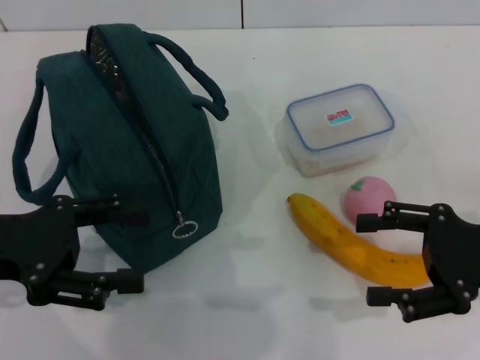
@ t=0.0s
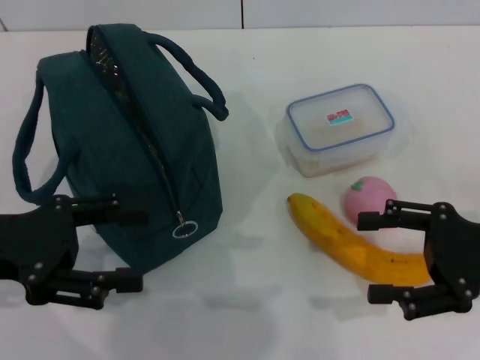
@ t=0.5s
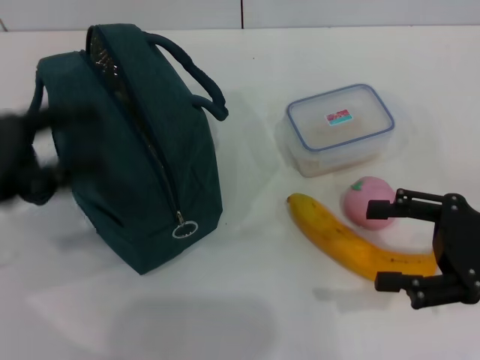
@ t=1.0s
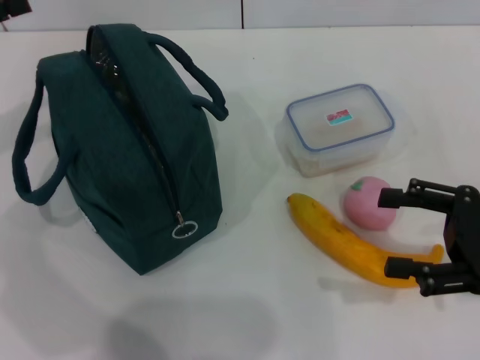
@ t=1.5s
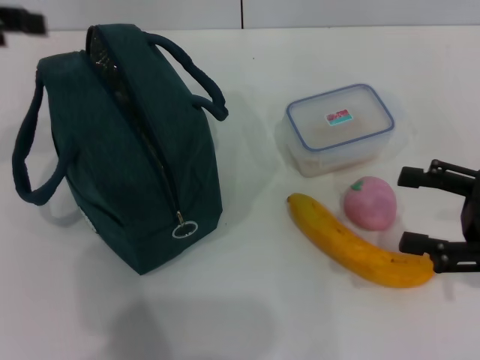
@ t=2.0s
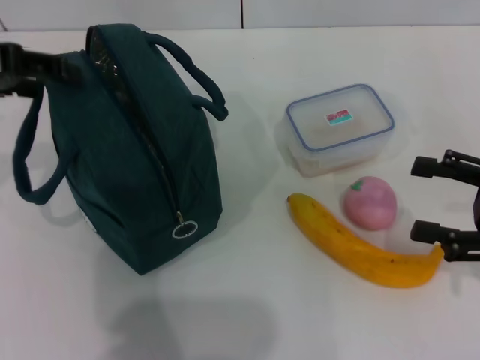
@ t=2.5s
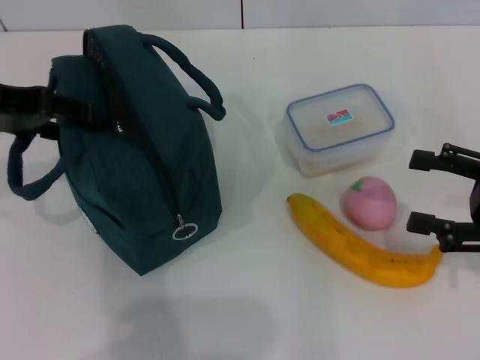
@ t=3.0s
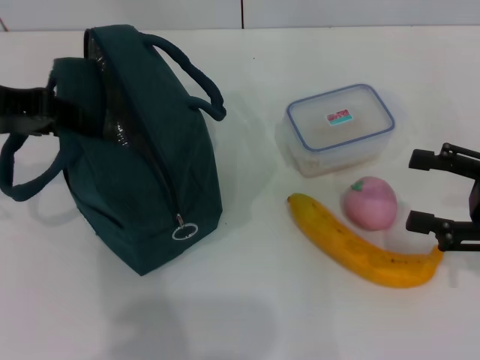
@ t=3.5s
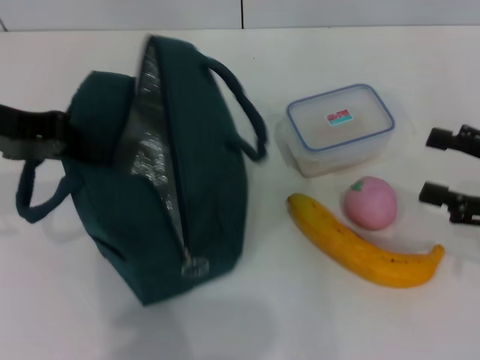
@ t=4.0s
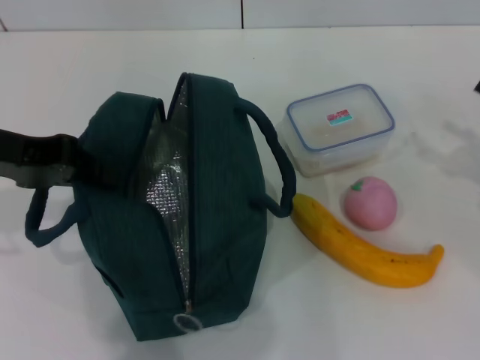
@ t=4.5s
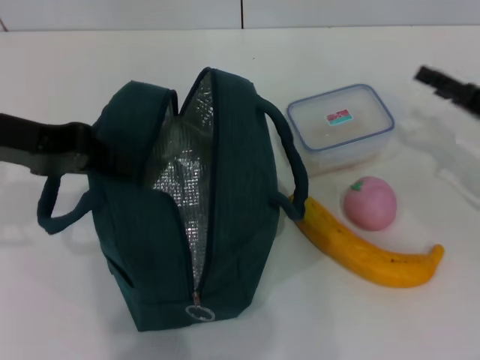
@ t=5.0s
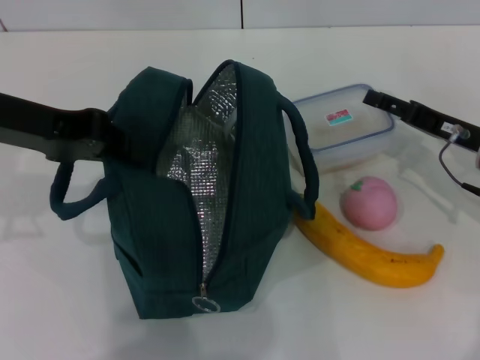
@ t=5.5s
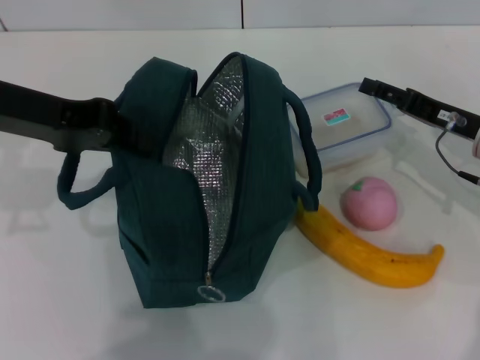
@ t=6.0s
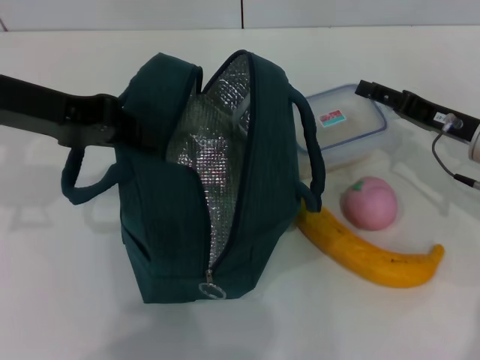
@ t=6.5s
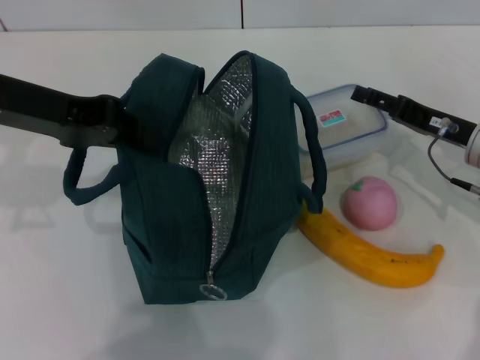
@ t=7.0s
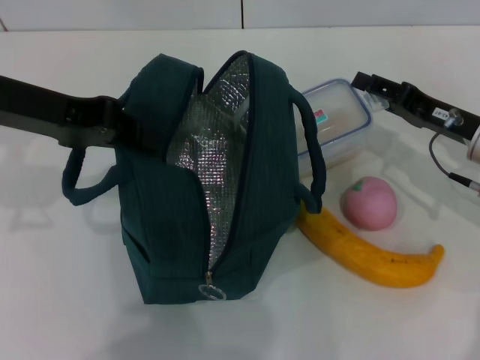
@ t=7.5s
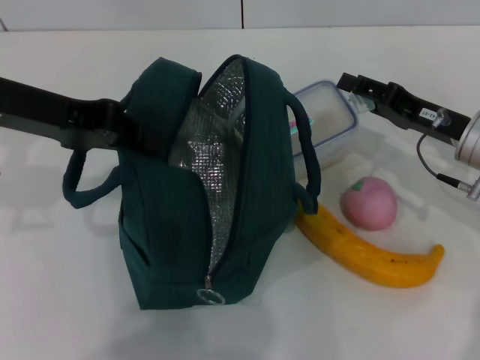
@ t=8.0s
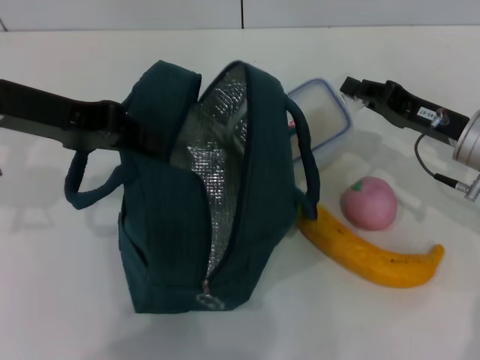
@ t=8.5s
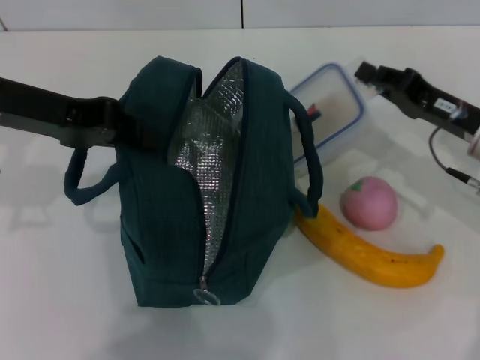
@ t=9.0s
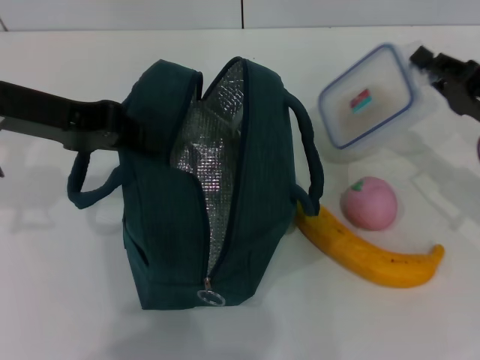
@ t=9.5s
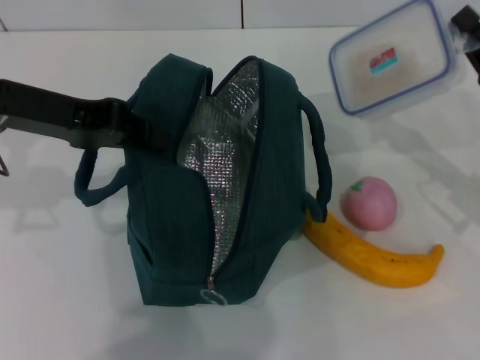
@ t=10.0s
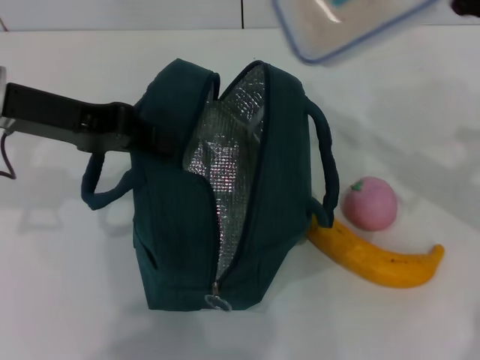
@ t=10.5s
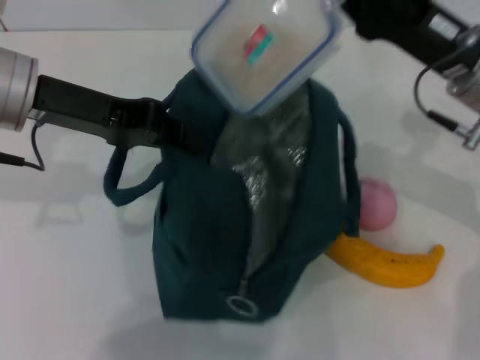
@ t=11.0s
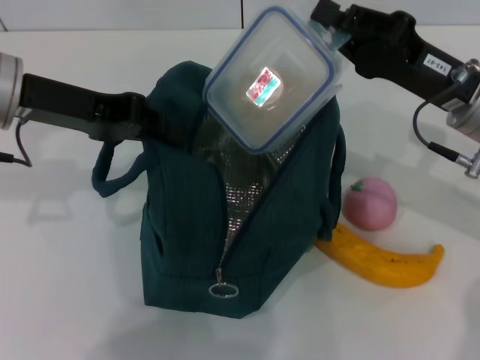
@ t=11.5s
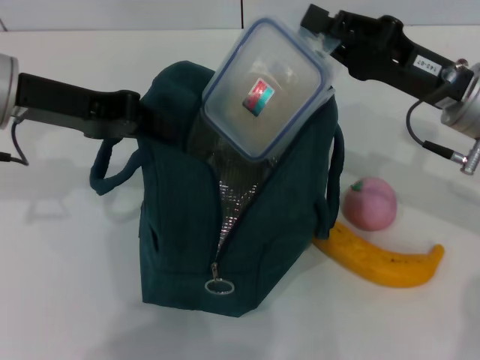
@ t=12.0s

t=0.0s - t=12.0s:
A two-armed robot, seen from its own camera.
Step, t=0.0s - t=3.5s: Hold the lunch bag with your left hand.
Step, t=4.0s - t=8.5s: Pick up the lunch box with your right hand.
t=0.0s - t=2.0s: The left gripper shifts roughly 15 cm upward and forward.
t=2.0s - t=4.0s: The left gripper shifts about 5 cm downward, and closes up.
t=4.0s - t=6.0s: The right gripper shifts roughly 15 cm forward and to the left.
t=6.0s - t=8.0s: The grippers make only small movements.
t=8.0s - t=10.0s: The right gripper shifts about 5 cm to the right, and closes up.
t=10.0s - t=12.0s: The right gripper travels to the left by about 10 cm.

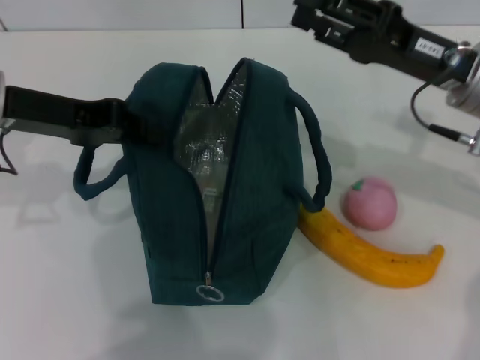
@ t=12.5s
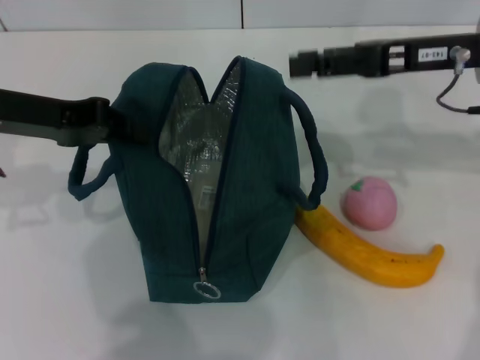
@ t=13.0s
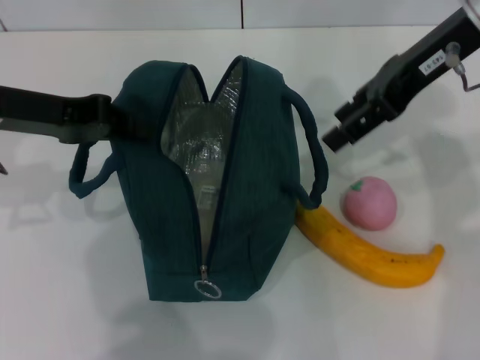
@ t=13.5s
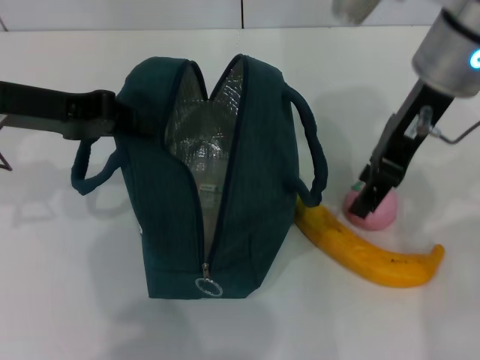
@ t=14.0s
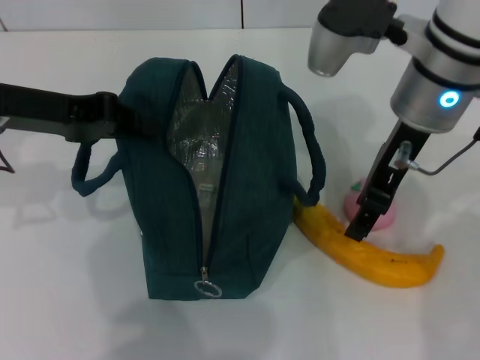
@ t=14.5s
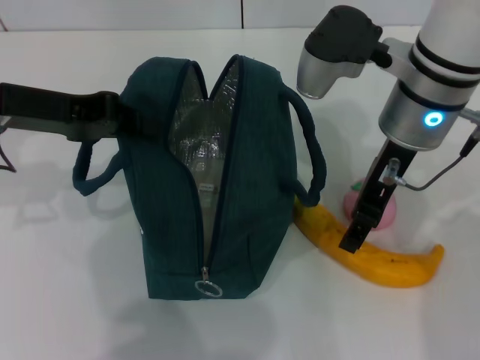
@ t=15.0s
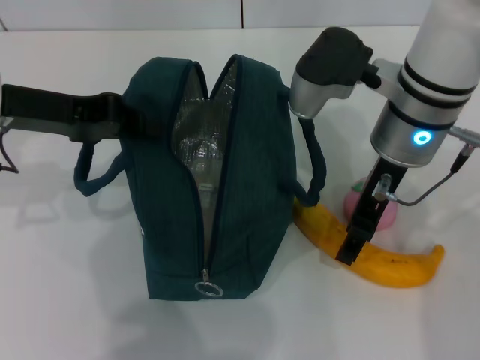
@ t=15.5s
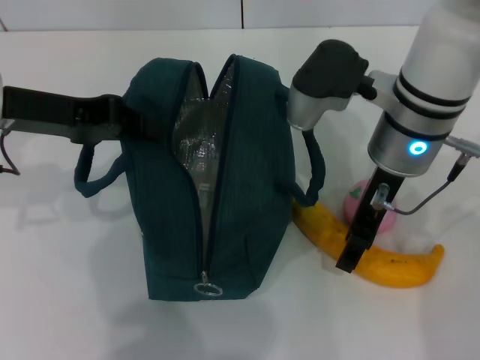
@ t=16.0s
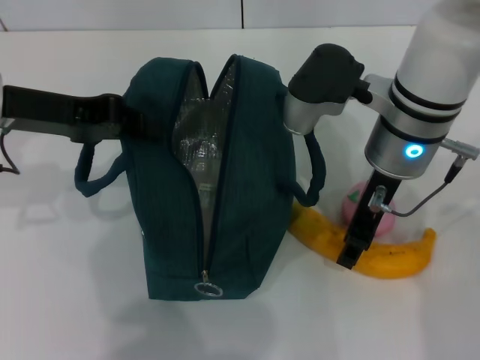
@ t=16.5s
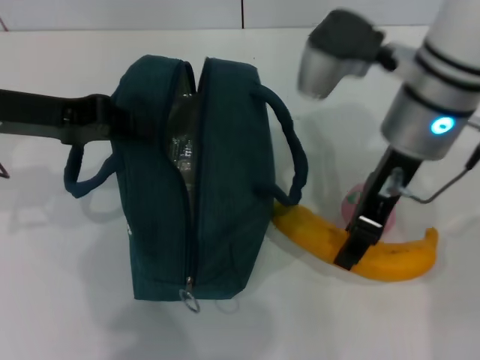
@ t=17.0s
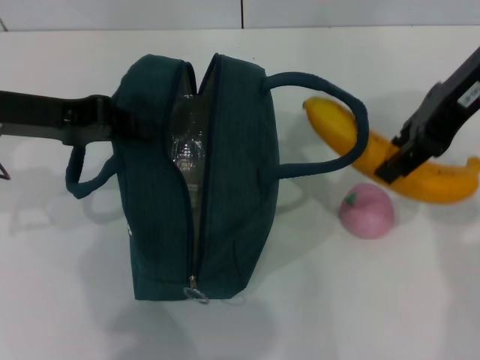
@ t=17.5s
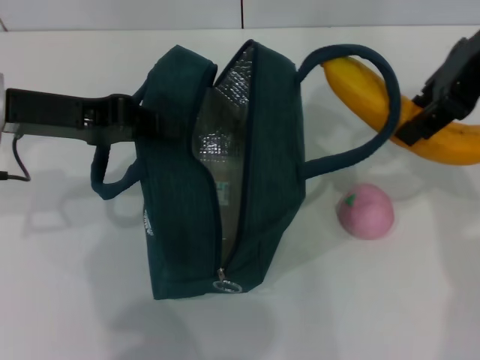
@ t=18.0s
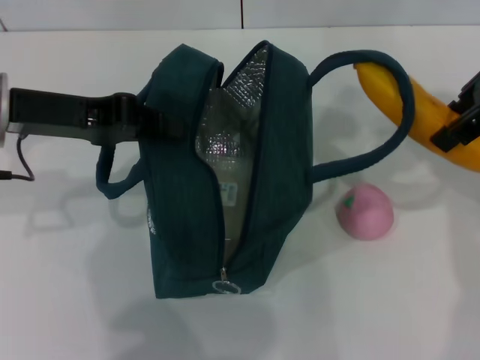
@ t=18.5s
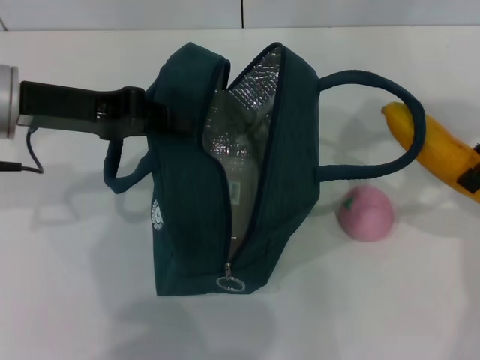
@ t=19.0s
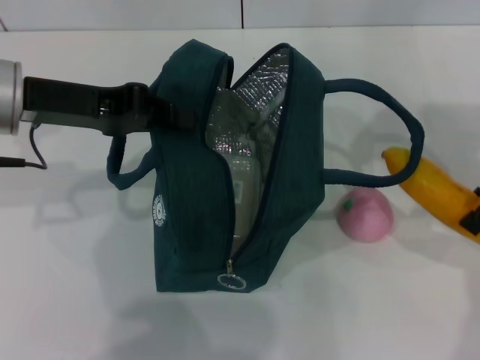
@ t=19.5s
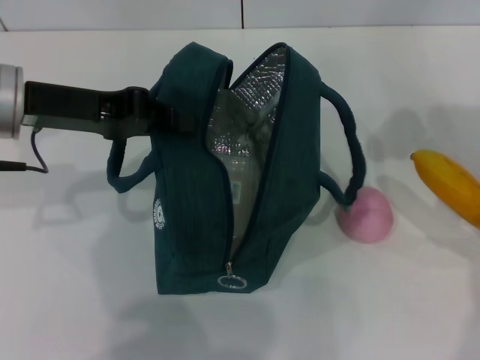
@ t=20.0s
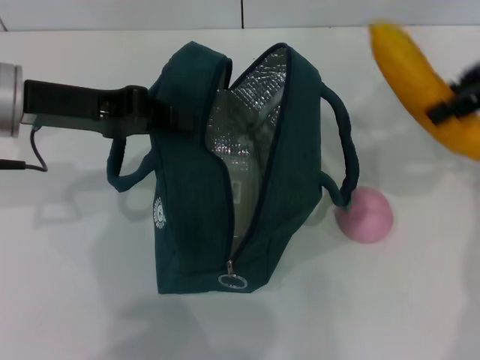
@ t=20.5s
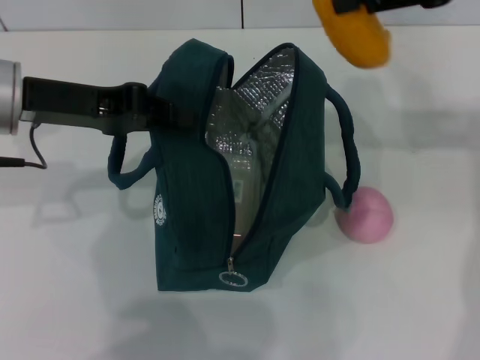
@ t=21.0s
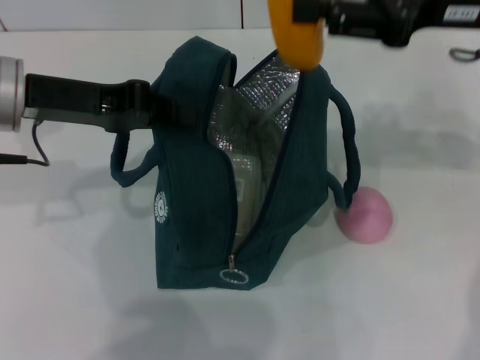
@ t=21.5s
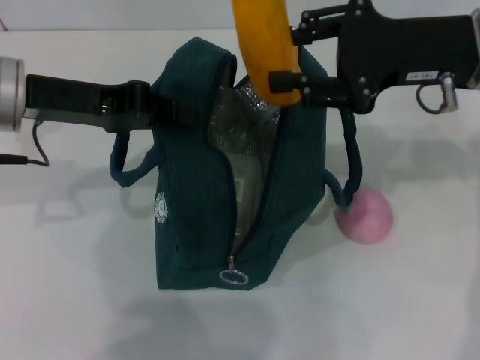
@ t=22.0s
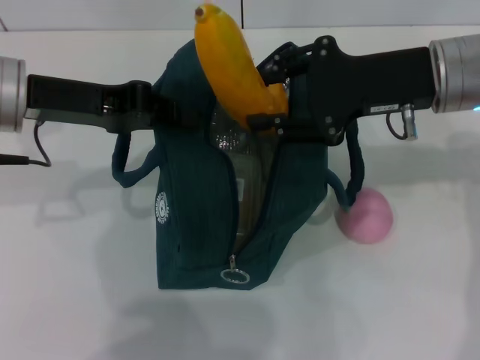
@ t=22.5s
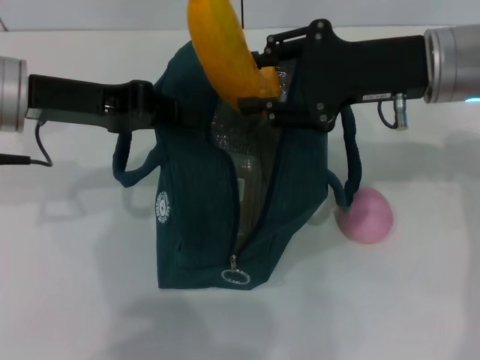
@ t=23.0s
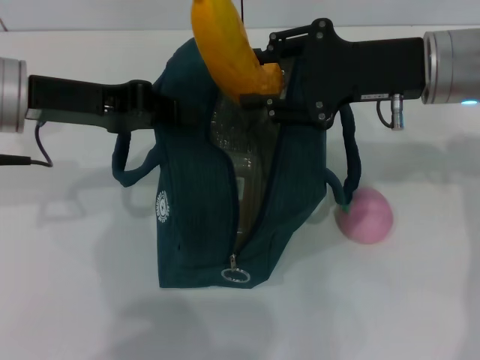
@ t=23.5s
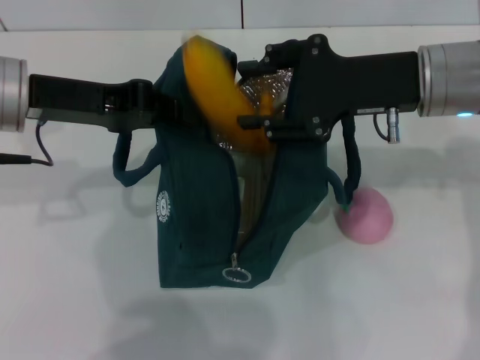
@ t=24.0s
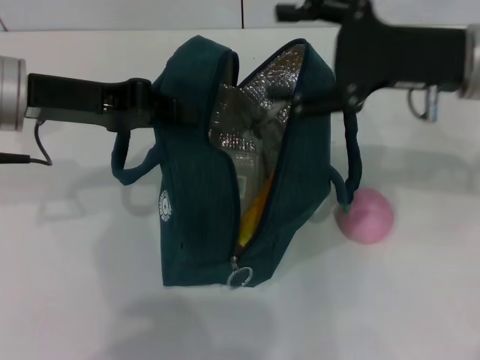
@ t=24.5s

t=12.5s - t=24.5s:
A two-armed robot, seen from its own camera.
Step, t=12.5s - t=16.5s: Take the banana with your right hand.
Step, t=17.0s - t=24.0s: Put the banana into the lunch bag with your right hand.
t=12.5s - t=14.5s: The right gripper is displaced to the left and upward by about 10 cm.
t=14.5s - t=16.5s: The right gripper ends up some 5 cm from where it was.
t=16.5s - t=18.5s: The right gripper moves upward and to the right, roughly 20 cm.
t=18.5s - t=20.5s: The right gripper moves roughly 10 cm downward and comes back.
t=20.5s - t=22.5s: The right gripper travels downward and to the left by about 15 cm.
t=22.5s - t=24.5s: The right gripper opens.

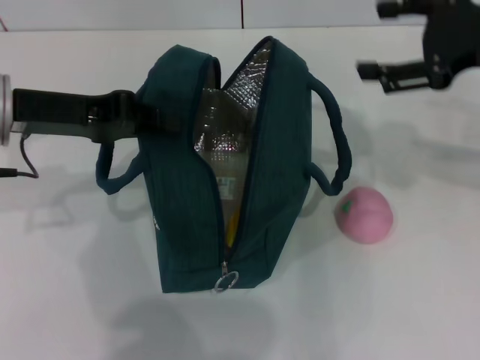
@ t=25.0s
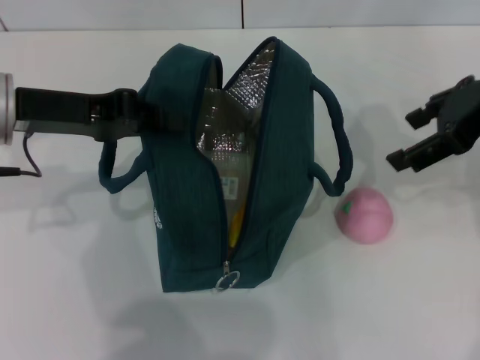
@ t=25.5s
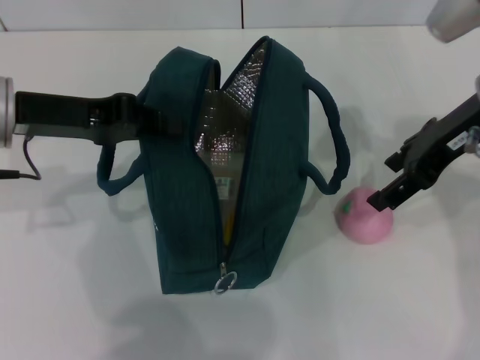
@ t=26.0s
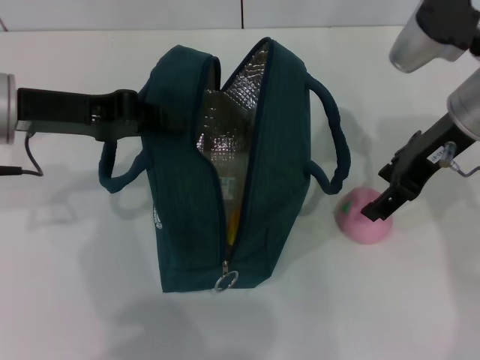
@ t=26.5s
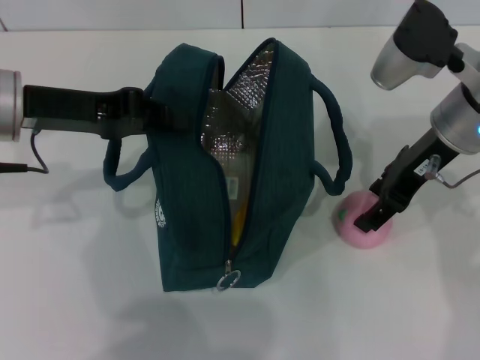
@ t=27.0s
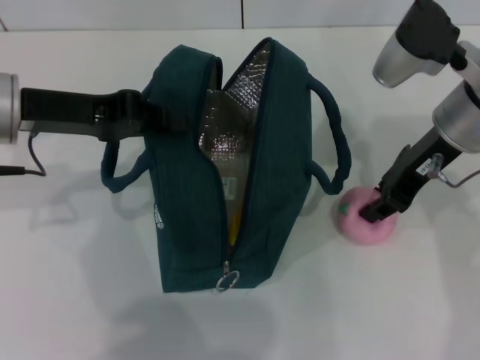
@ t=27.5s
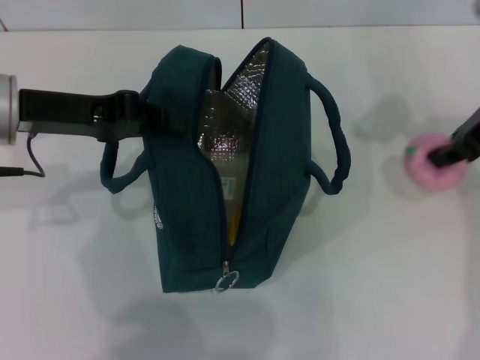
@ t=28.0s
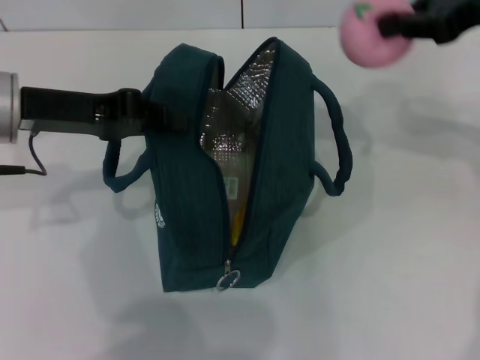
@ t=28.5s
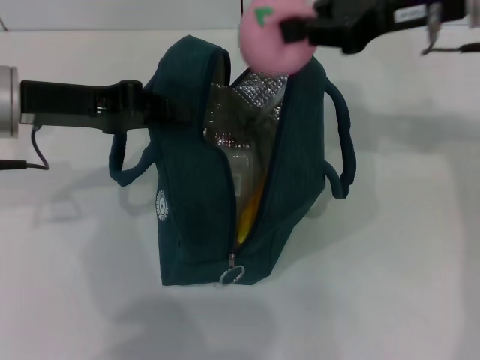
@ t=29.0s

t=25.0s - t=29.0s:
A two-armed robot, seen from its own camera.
Step, t=25.0s - t=27.0s: Grab the peach with your right hand.
t=25.0s - t=27.0s: The right gripper heads to the left and downward, covering roughly 10 cm.
t=27.0s - t=29.0s: The right gripper shifts approximately 10 cm upward, and closes up.
